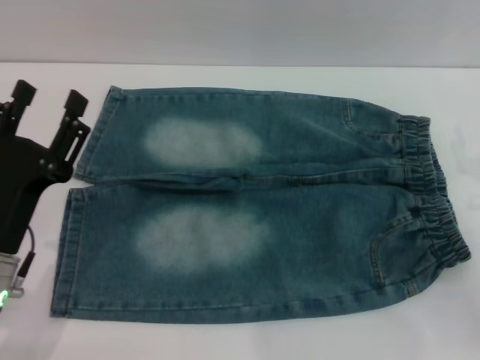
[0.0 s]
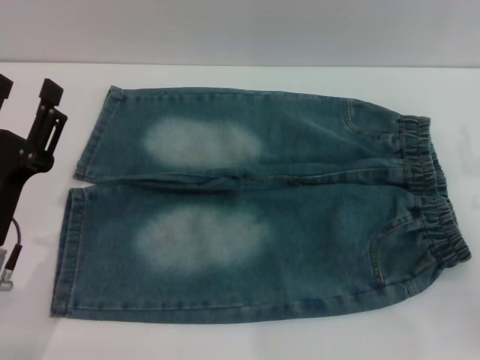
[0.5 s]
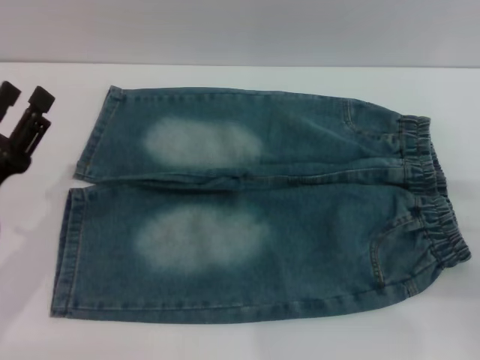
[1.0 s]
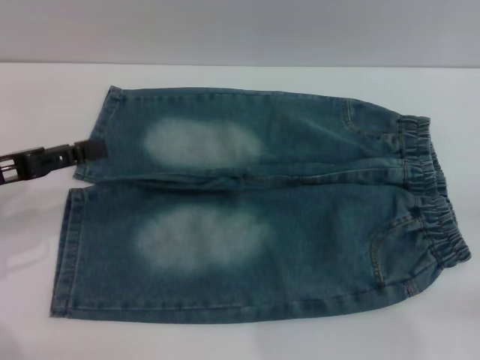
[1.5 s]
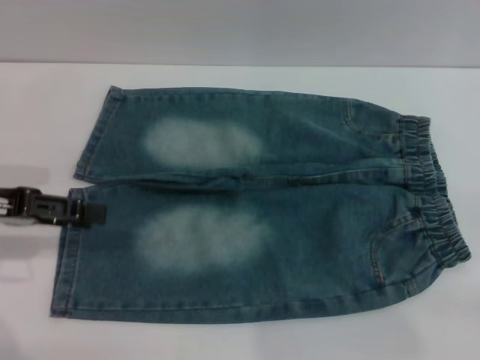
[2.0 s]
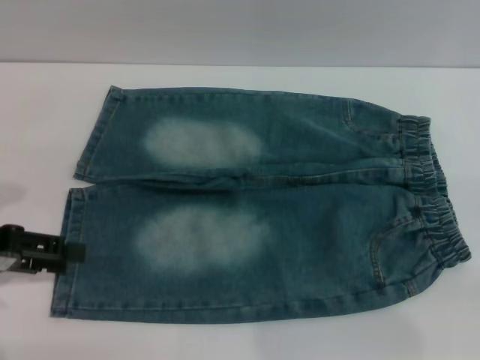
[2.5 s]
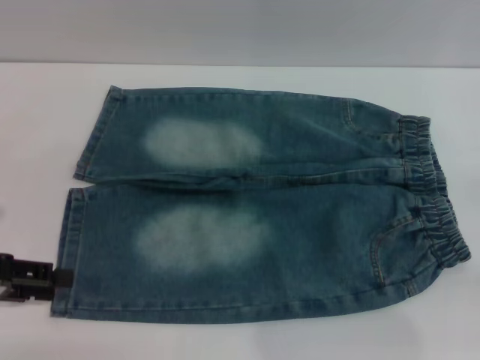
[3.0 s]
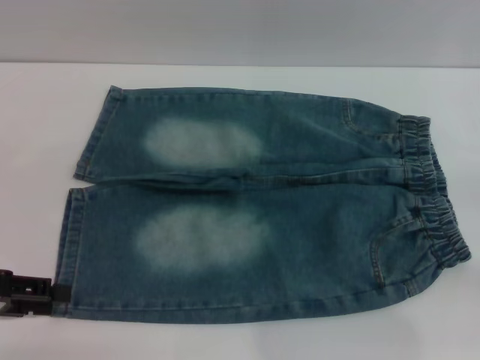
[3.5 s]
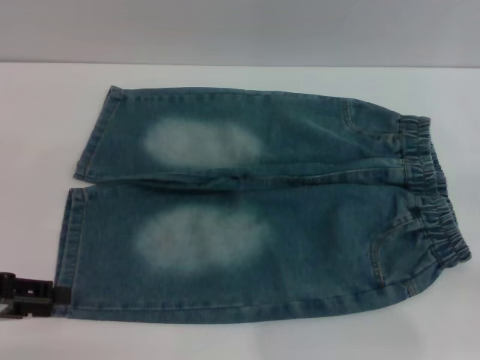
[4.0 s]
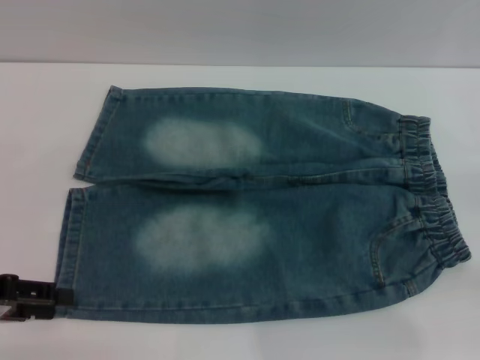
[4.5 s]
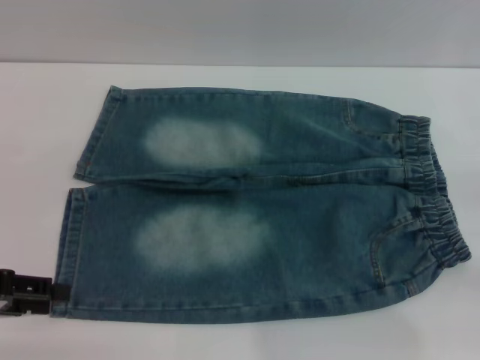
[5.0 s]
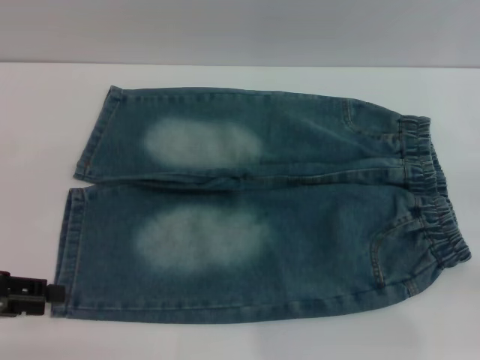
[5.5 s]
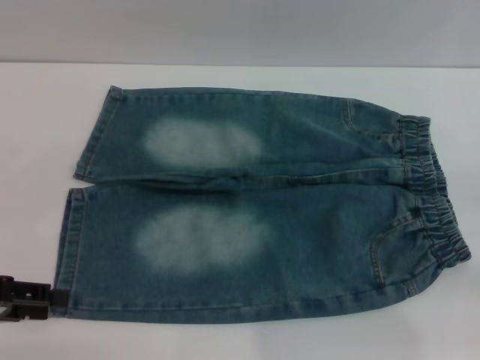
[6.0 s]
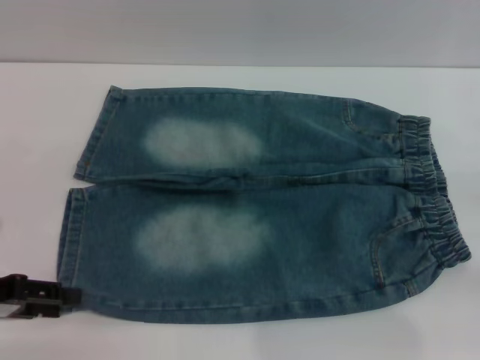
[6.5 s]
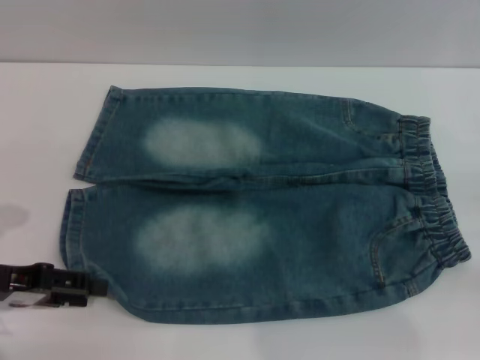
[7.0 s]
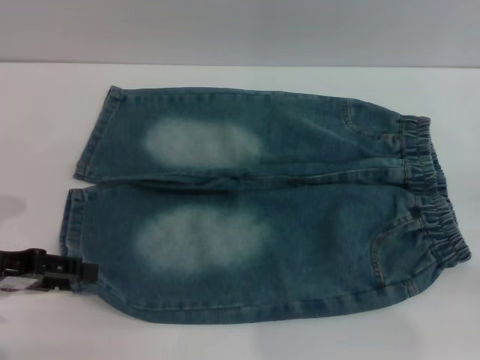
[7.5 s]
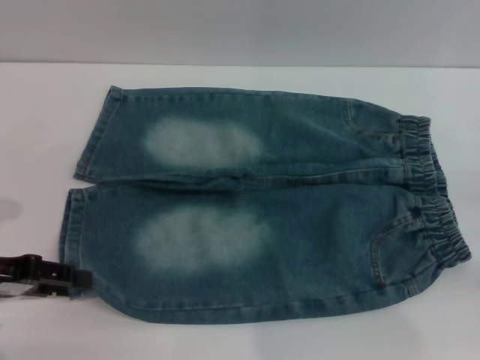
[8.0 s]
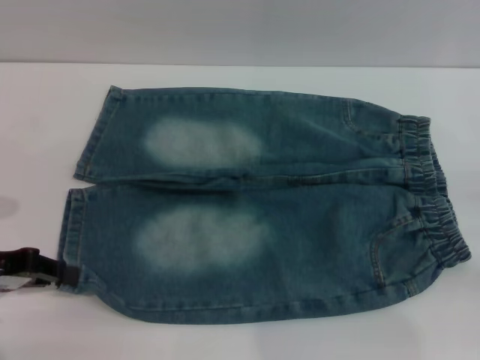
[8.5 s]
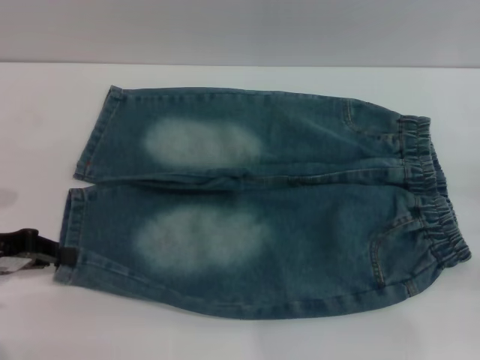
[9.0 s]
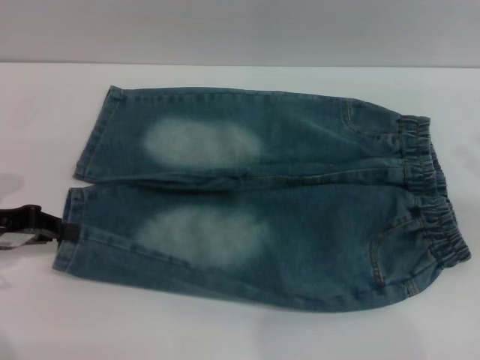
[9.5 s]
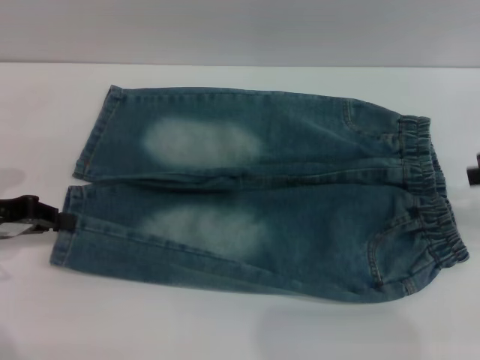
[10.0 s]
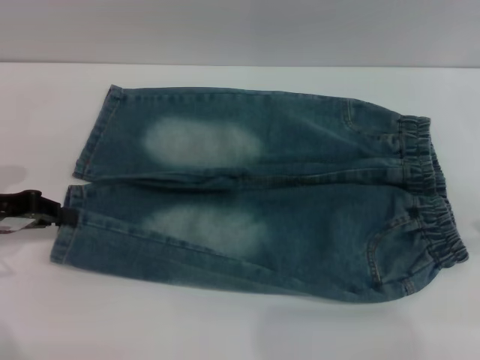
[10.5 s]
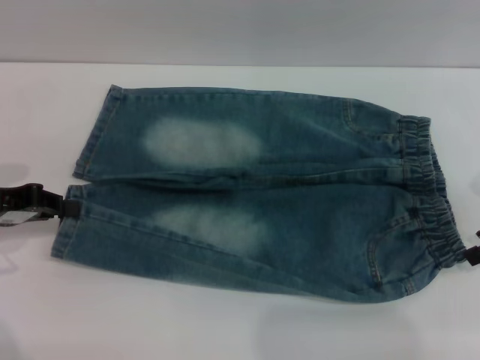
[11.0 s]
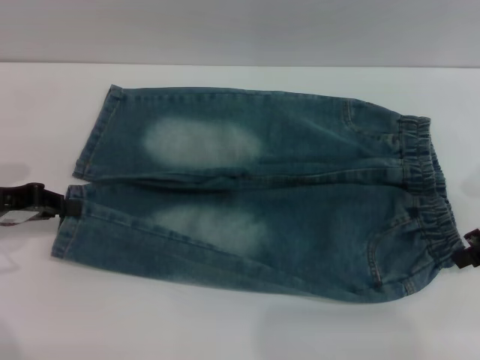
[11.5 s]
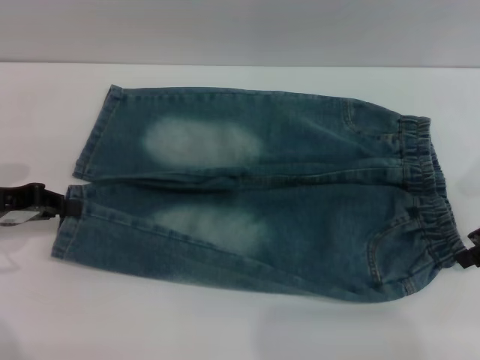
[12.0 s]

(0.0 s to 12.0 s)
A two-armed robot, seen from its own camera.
Step, 0.0 s - 8.5 s: Grasp the lower left leg of the shorts with left gripper.
0.0 s - 2.0 s: The left gripper heads upward, to the left and forward, covering about 15 cm.
2.0 s - 4.0 s: The left gripper moves downward and backward, about 10 cm.
4.0 s - 6.0 s: Both grippers stay put.
6.0 s - 8.0 s: The grippers stay close to where they were, moving slightly.
8.0 s - 10.0 s: The left gripper closes up. Meanwhile the right gripper shifts approximately 15 cm upward and forward.
10.0 s - 12.0 s: The right gripper shifts by about 5 cm.

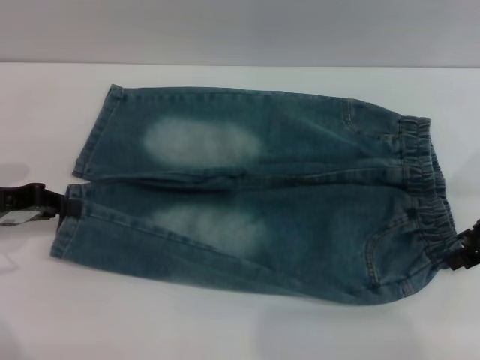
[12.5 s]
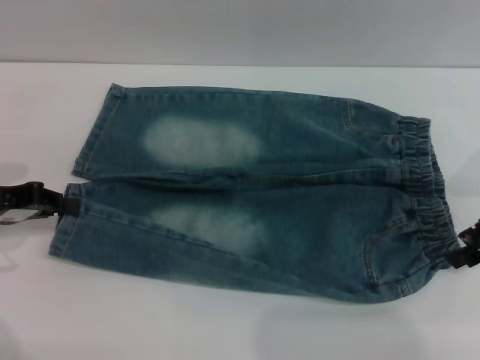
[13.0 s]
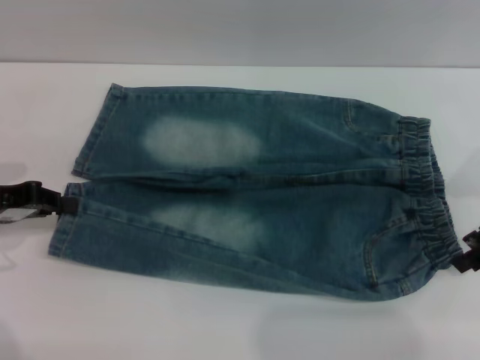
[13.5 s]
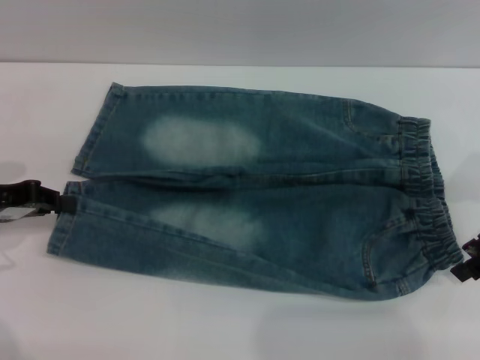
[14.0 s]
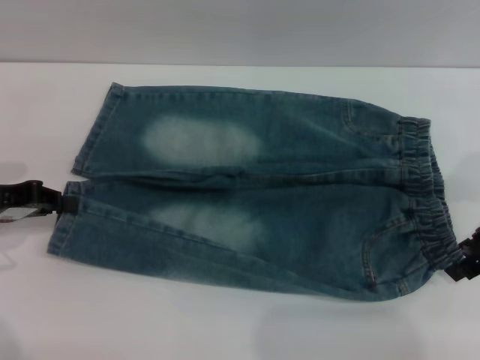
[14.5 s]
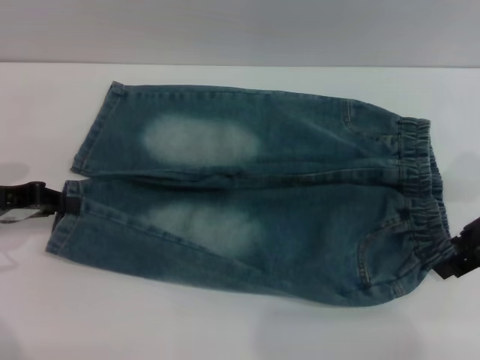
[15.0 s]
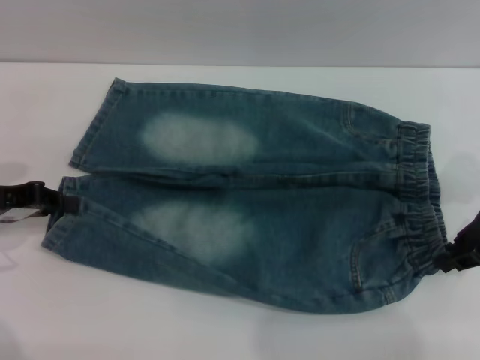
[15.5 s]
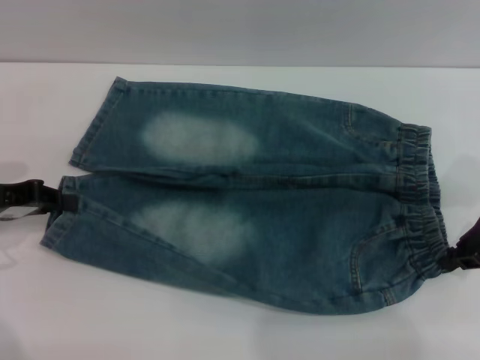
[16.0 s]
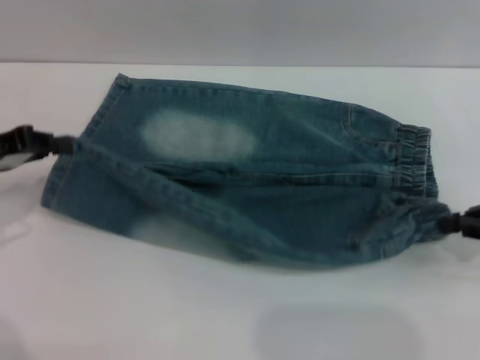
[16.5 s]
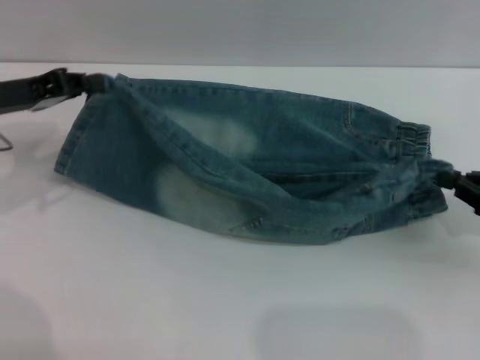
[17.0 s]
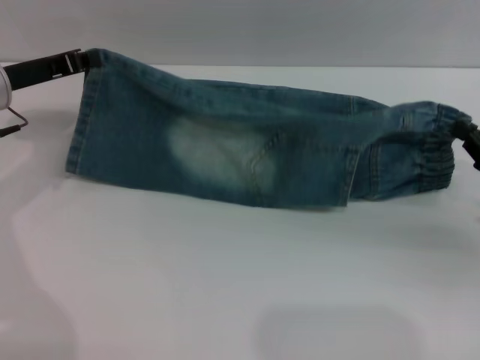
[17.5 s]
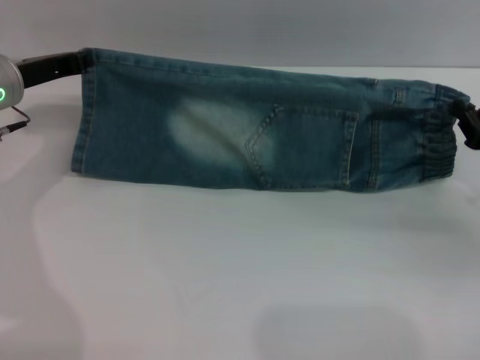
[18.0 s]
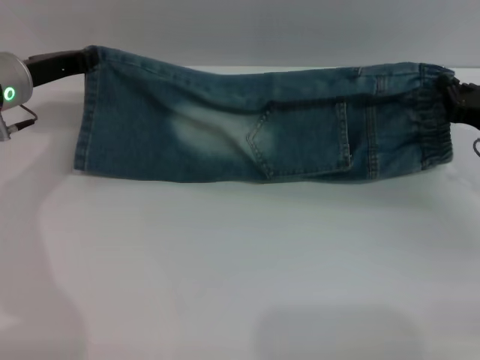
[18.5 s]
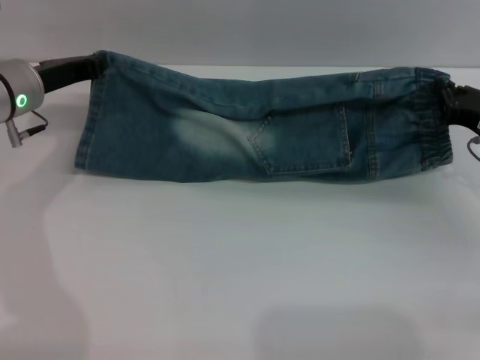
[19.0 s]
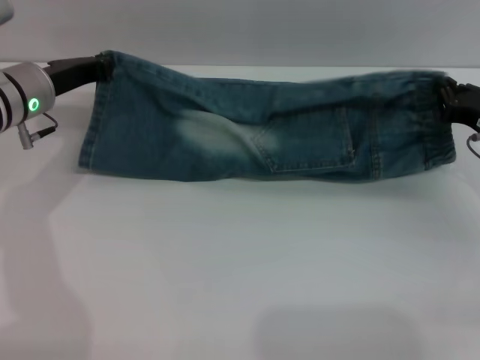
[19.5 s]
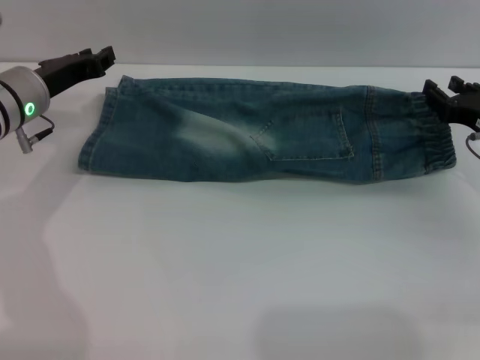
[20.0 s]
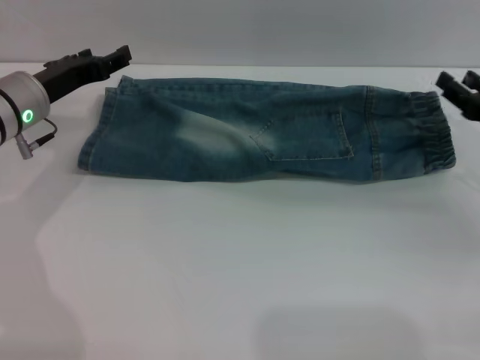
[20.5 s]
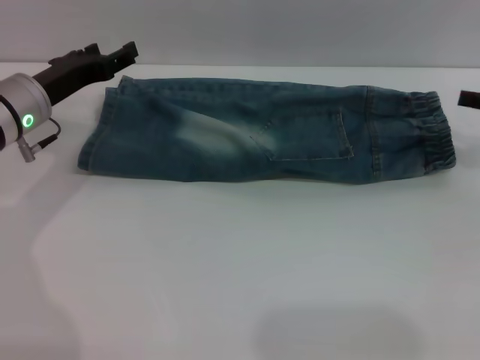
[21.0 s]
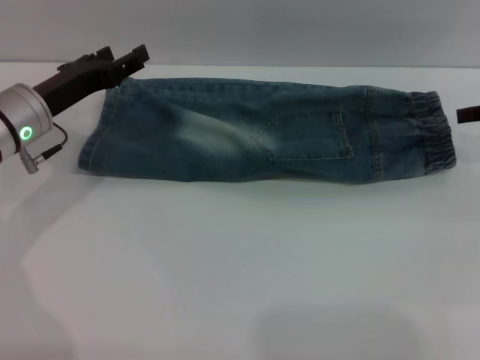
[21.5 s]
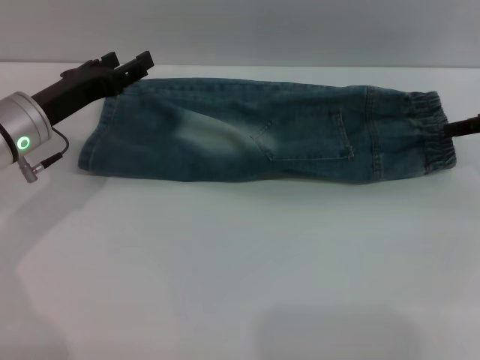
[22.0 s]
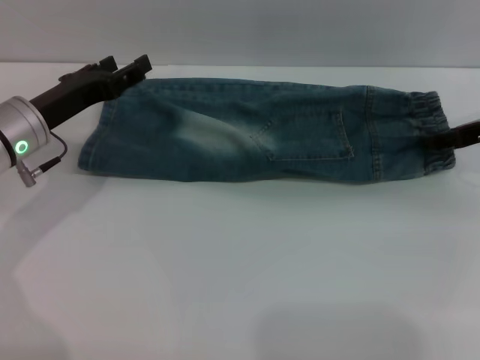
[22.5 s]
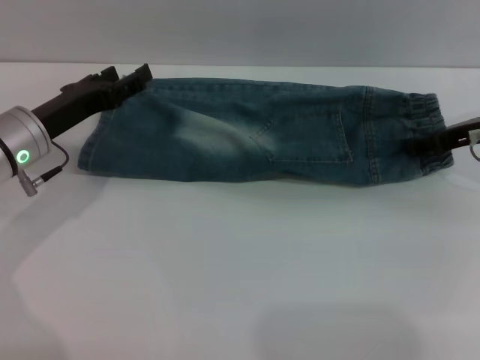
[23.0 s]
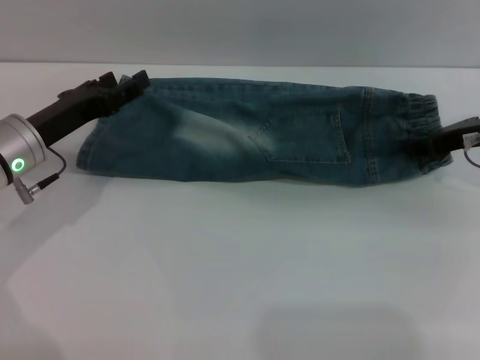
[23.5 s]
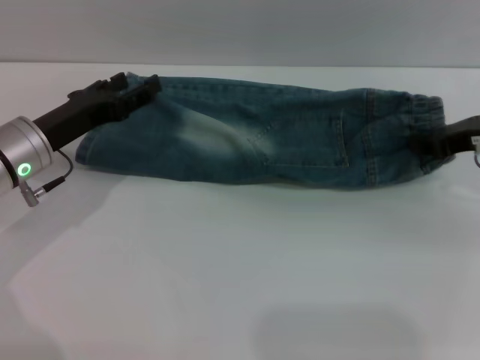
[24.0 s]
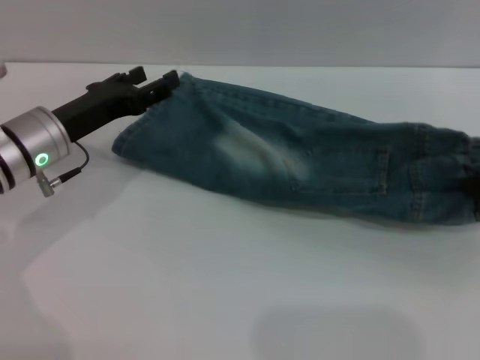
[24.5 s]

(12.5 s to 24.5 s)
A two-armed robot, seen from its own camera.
Step, 12.5 s - 16.0 s: Grasp the right lower side of the waistband of the shorts with right gripper.
Step, 16.5 s - 20.0 s: Fold the bottom of the shorts upward with right gripper.
12.5 s - 14.5 s: The grippers make only small movements.
14.5 s - 16.5 s: The right gripper changes place by some 5 cm, and closes.
16.5 s - 18.5 s: The right gripper moves downward and forward, about 10 cm. Meanwhile the left gripper moves forward and to the right, approximately 10 cm.
18.5 s - 20.5 s: The right gripper opens. Meanwhile the left gripper opens its fingers.
20.5 s - 22.5 s: The right gripper moves forward and upward, about 10 cm.
22.5 s - 24.5 s: The right gripper is displaced backward by some 10 cm, and closes up.

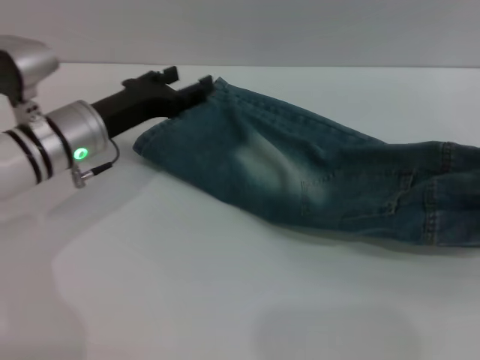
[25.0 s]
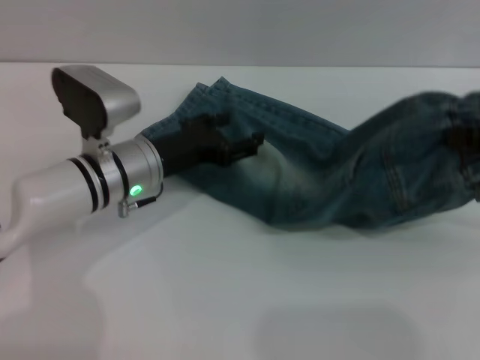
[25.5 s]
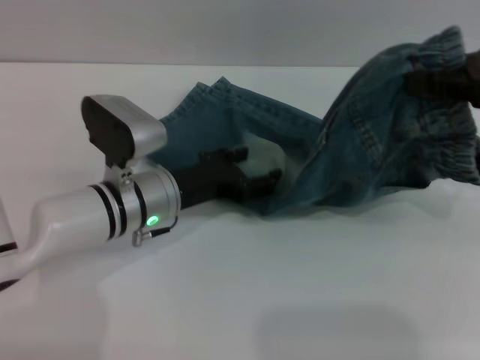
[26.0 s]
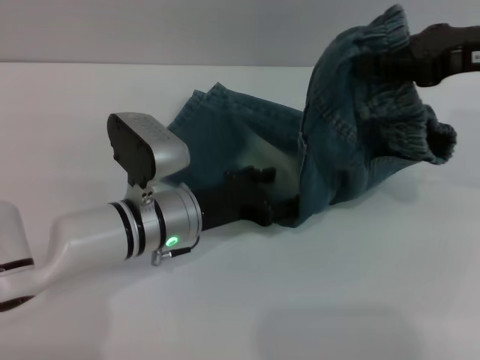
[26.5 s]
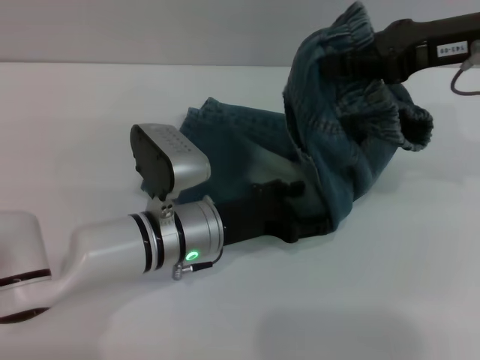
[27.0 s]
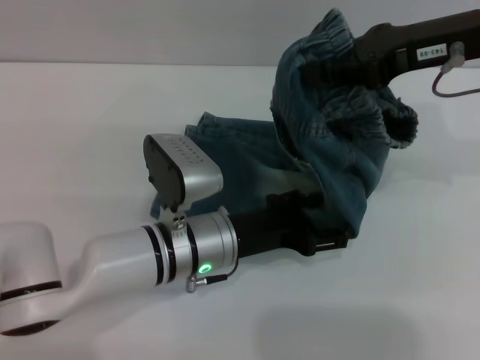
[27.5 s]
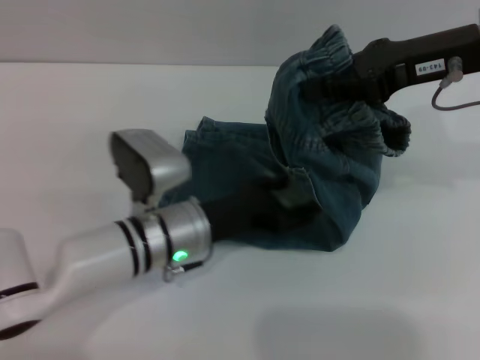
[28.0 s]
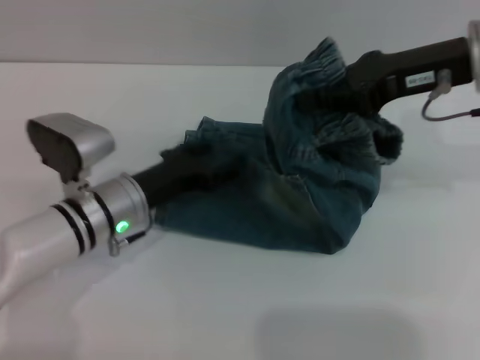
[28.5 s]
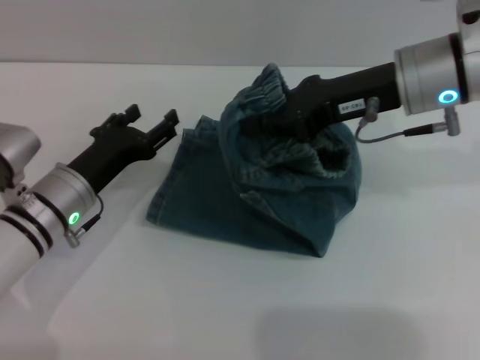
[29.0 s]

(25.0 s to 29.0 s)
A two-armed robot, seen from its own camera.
25.0 s - 27.0 s: The left gripper heads to the right and backward, covering about 15 cm. Meanwhile the right gripper heads to the left, forward and upward, covering some 15 cm.
27.0 s - 29.0 s: The right gripper moves to the left, approximately 5 cm, while the left gripper heads to the left, covering about 10 cm.
